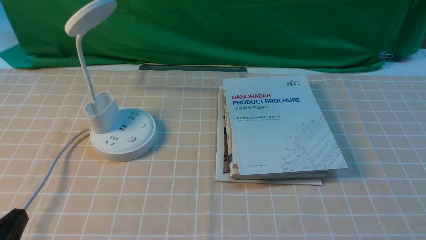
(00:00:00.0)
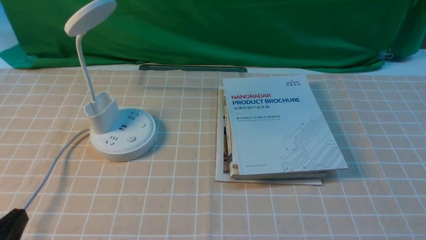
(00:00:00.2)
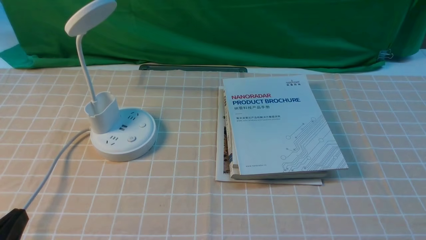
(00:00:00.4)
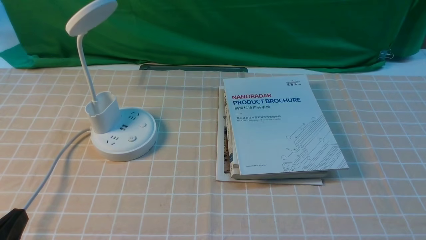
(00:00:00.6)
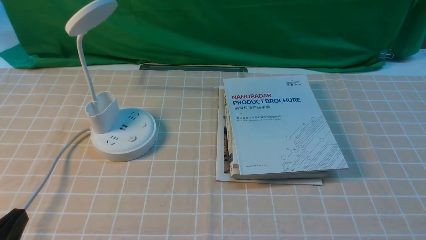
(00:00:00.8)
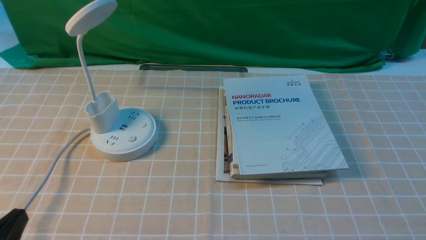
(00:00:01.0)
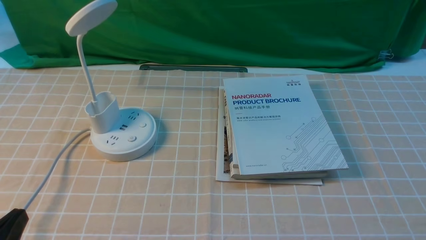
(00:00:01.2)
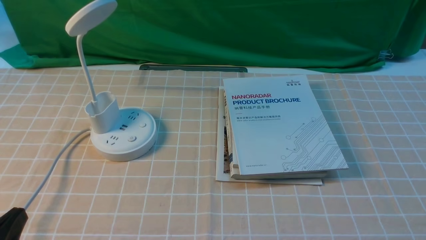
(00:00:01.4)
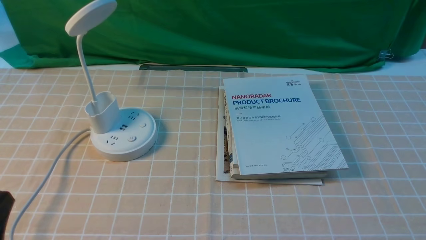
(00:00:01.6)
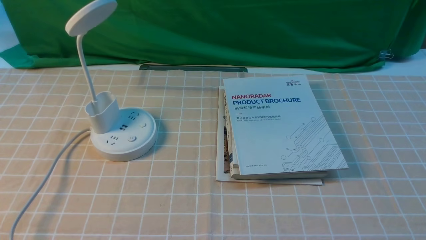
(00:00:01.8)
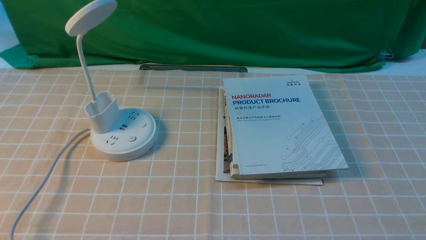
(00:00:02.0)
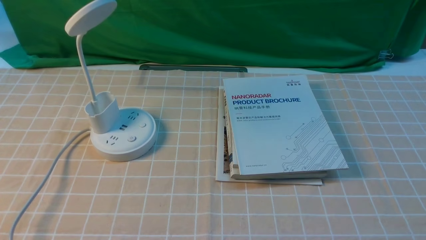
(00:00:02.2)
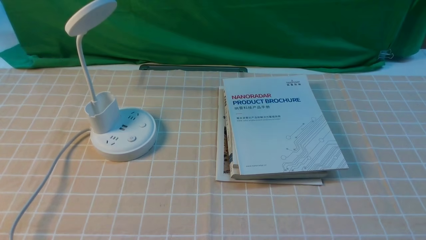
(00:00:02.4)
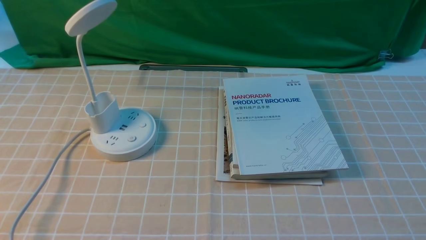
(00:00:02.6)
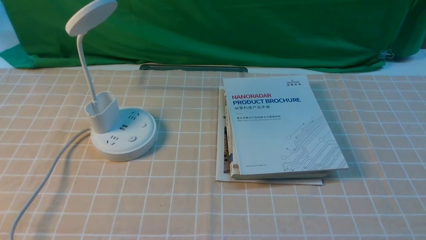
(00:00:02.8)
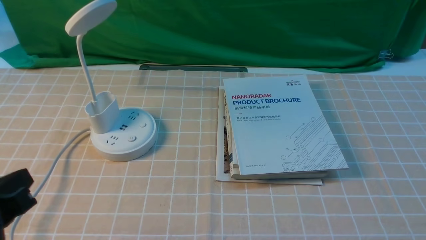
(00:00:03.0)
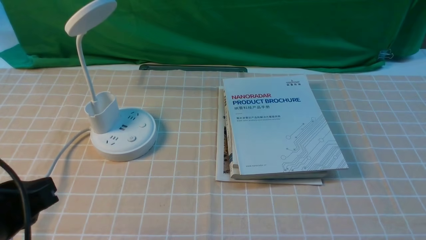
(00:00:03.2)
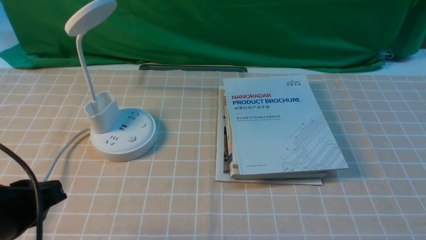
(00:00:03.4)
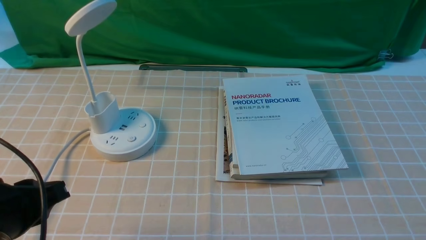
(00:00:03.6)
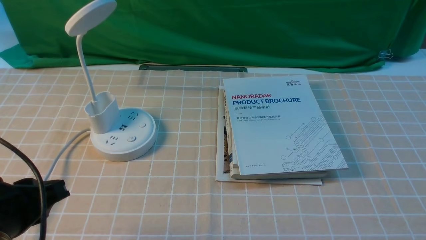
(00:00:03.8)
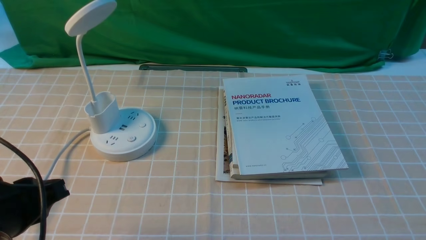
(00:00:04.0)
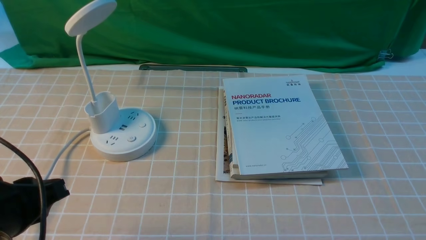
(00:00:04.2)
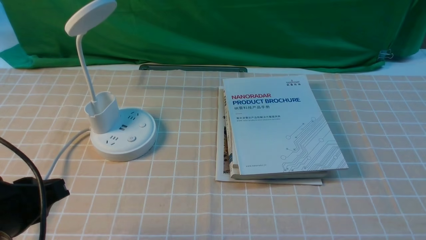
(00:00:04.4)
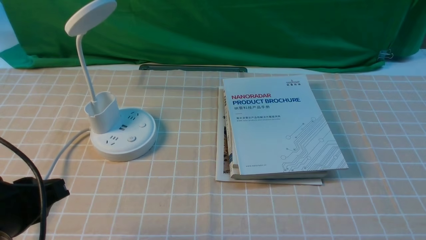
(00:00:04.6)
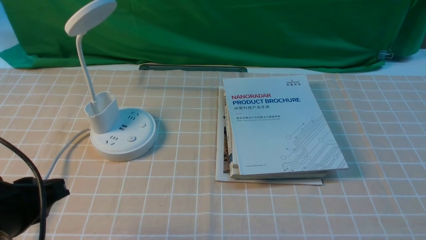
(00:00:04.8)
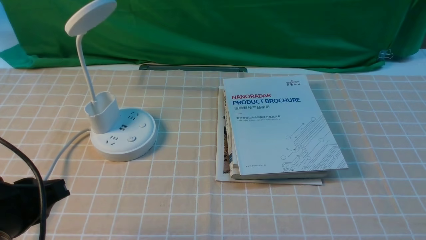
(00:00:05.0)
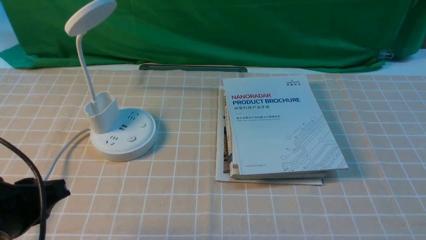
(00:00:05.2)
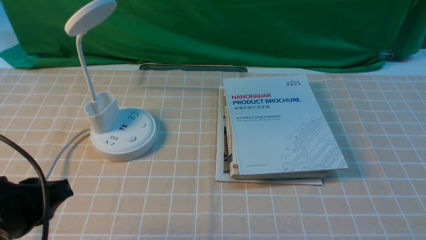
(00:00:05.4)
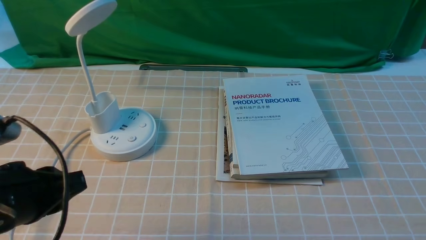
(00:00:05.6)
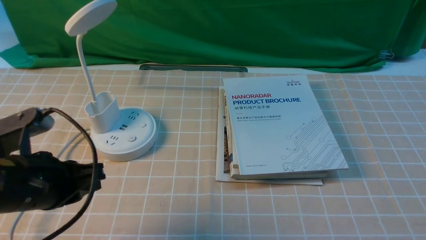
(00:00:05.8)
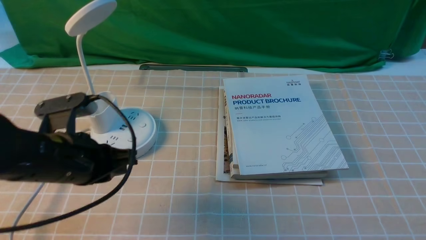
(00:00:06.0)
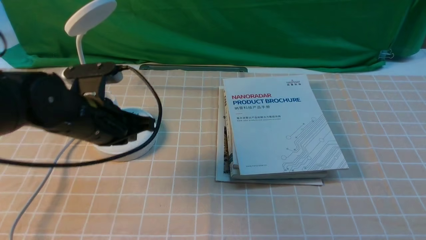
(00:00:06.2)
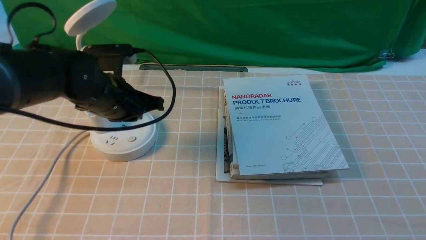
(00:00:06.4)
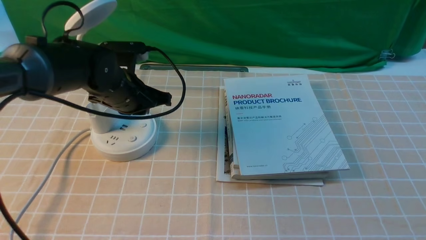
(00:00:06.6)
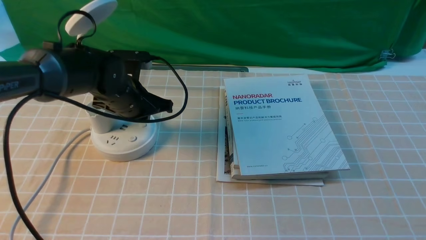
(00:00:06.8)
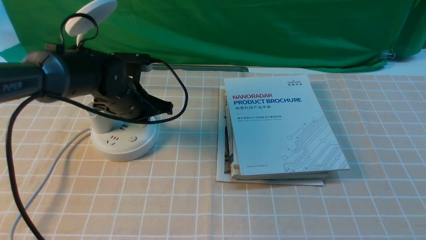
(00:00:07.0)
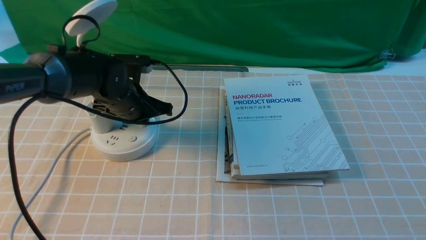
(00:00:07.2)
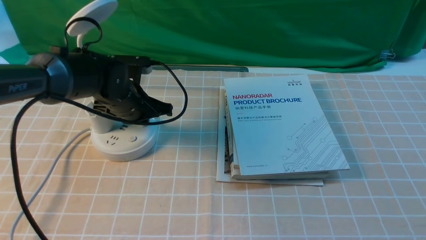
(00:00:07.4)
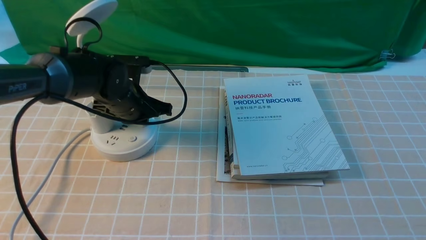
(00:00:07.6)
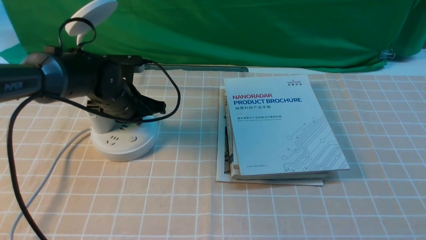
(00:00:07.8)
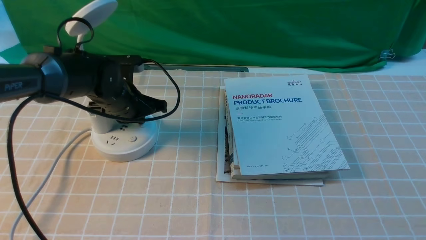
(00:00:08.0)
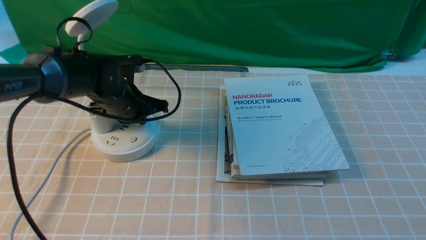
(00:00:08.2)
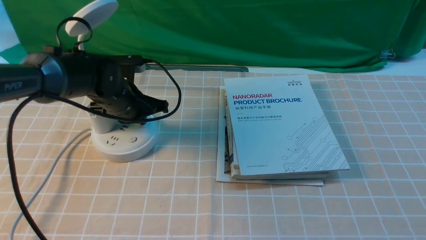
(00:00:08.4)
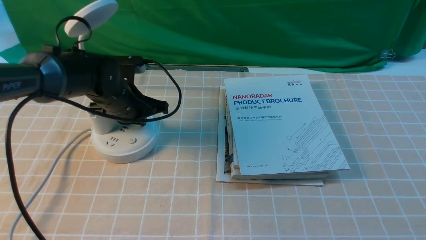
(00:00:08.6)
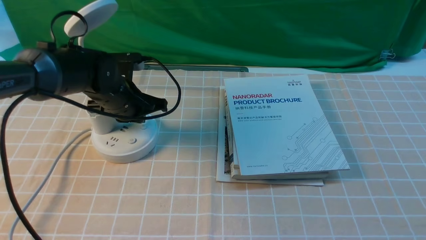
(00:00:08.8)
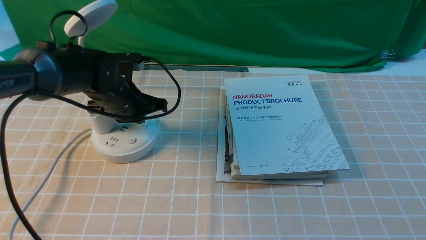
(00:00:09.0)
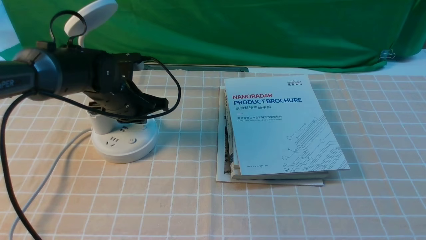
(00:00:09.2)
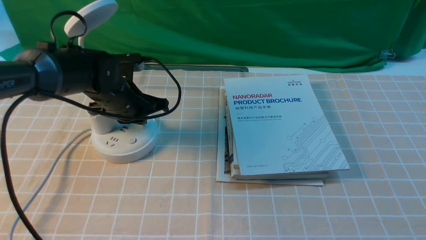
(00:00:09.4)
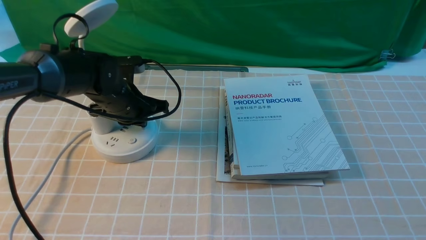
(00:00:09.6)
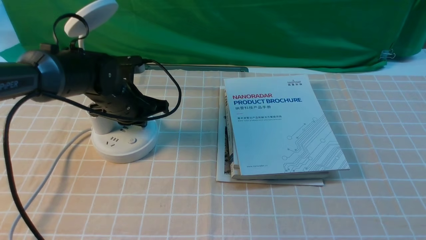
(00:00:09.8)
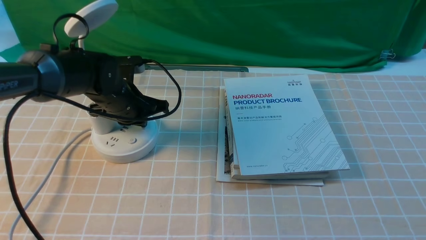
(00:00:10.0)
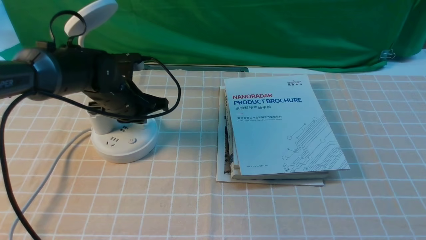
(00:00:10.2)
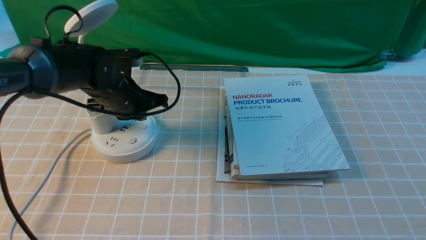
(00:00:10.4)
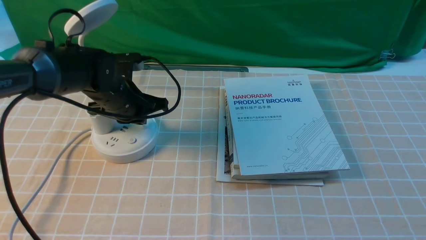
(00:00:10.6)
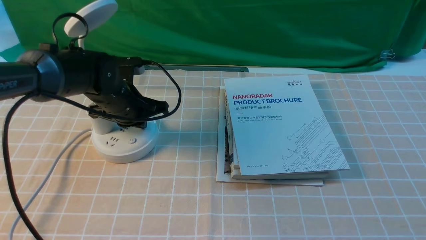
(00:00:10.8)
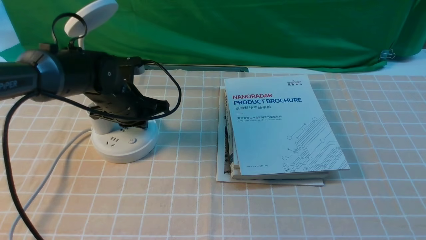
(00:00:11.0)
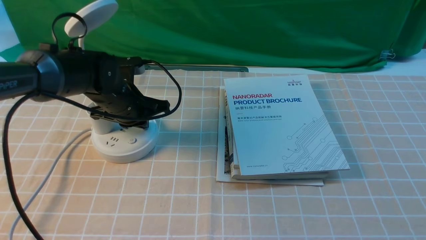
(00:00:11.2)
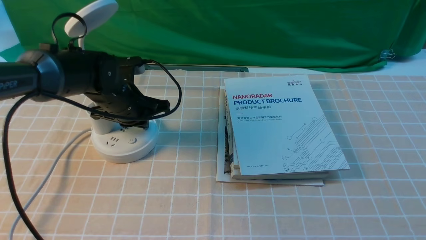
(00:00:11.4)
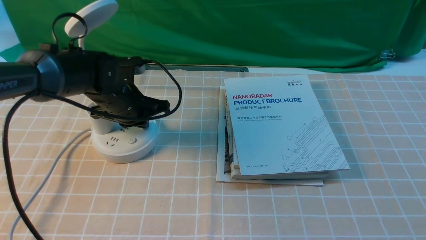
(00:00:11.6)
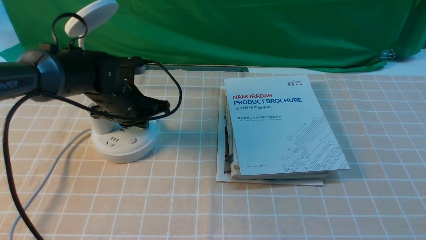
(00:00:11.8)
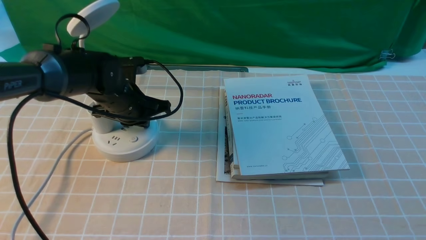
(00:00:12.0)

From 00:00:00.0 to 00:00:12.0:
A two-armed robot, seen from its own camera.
From 00:00:01.6 to 00:00:03.0: The left gripper shifts roughly 5 cm upward.
From 00:00:03.0 to 00:00:04.4: The grippers move only a little.
From 00:00:04.4 to 00:00:06.0: The left gripper goes about 10 cm forward and to the right, and closes its fingers.
From 00:00:06.0 to 00:00:07.6: The left gripper goes some 15 cm forward.
From 00:00:07.6 to 00:00:09.0: Both grippers stay put.
From 00:00:09.0 to 00:00:10.4: Both grippers stay about where they are.
From 00:00:10.4 to 00:00:12.0: The grippers make only small movements.

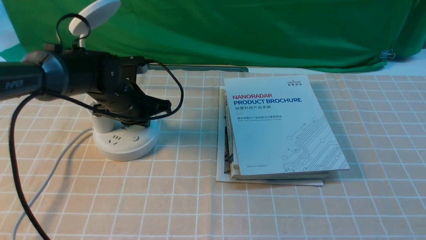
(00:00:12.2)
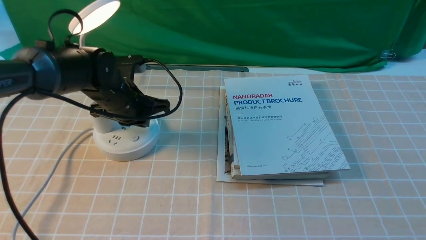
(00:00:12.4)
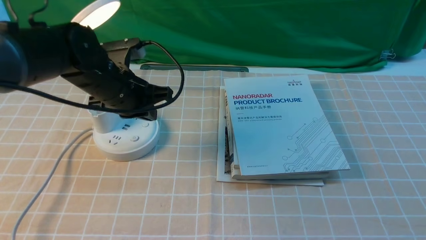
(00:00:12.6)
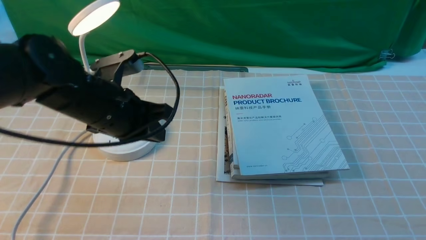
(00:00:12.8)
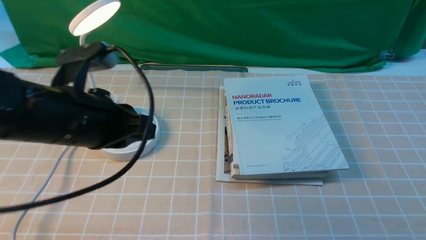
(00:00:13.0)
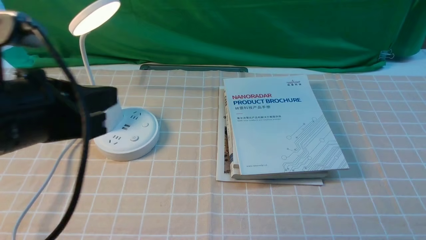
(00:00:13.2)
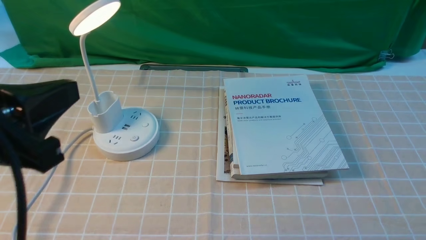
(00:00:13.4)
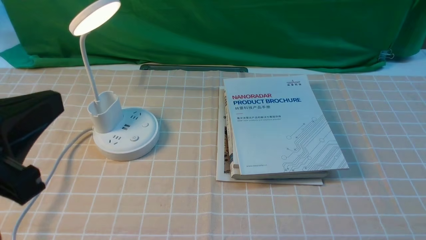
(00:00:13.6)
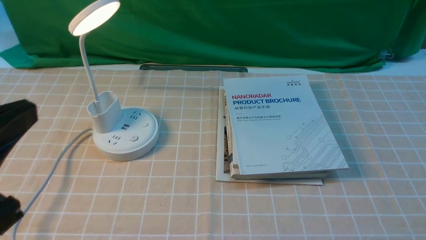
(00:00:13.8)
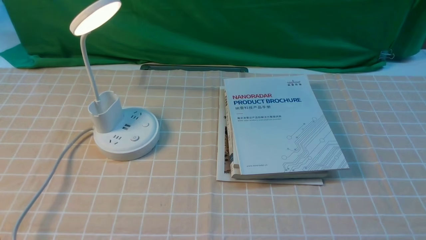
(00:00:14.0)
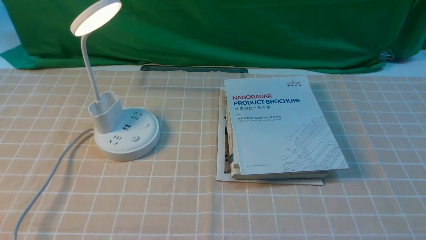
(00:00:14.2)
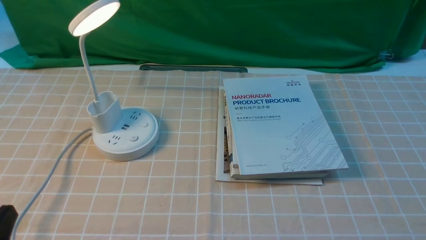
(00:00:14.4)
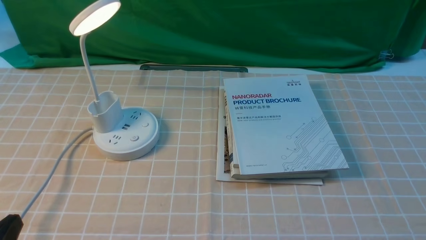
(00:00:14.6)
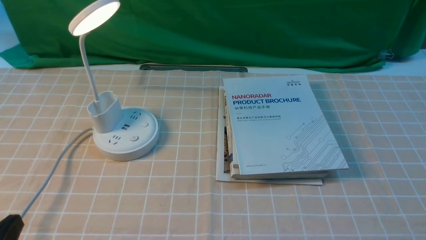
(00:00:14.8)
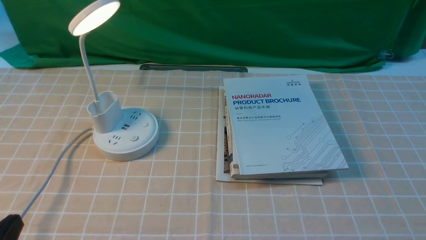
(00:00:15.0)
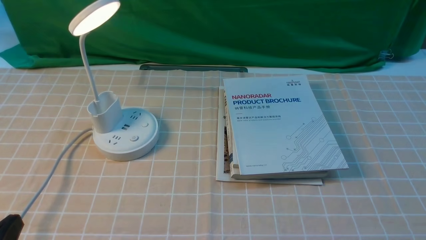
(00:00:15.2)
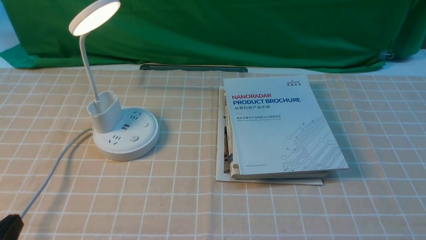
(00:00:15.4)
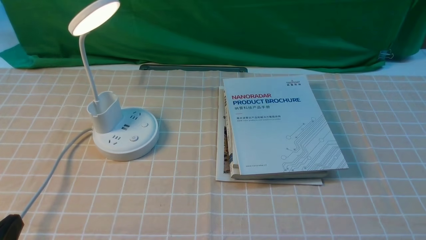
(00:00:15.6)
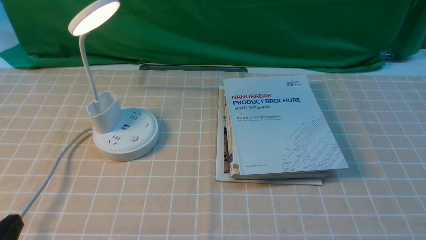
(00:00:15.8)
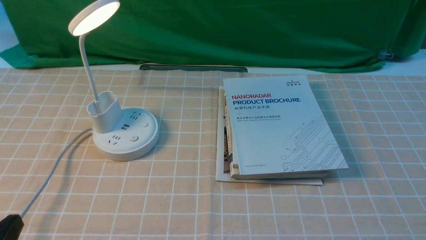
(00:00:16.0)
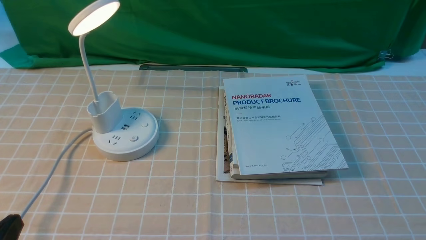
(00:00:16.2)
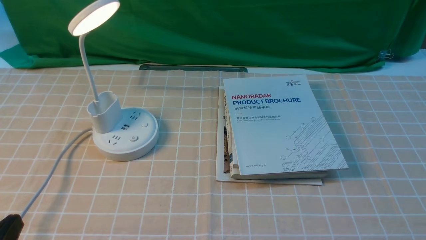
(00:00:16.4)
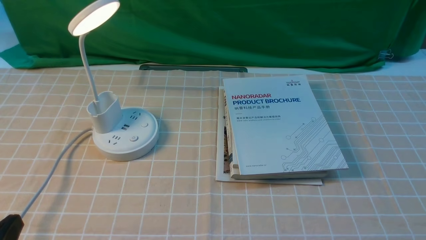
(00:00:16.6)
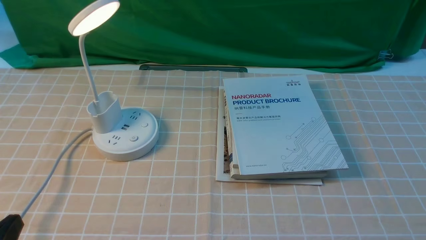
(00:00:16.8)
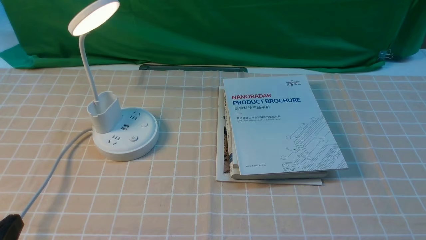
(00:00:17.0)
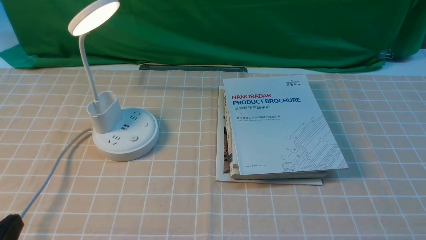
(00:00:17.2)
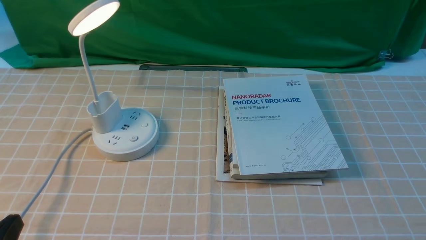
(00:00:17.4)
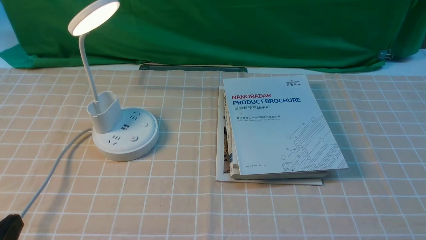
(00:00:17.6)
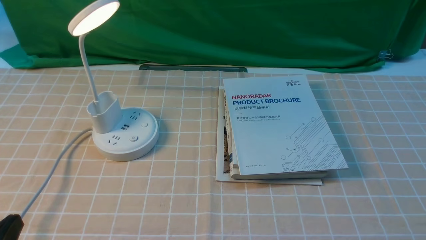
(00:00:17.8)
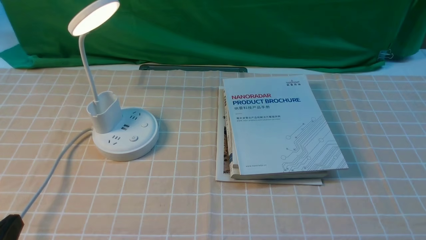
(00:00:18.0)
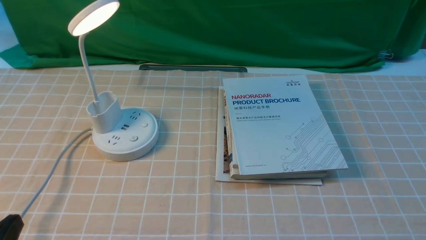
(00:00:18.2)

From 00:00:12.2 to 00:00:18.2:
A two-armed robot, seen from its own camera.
From 00:00:12.2 to 00:00:13.8: The left gripper travels backward and upward by about 35 cm.
From 00:00:13.8 to 00:00:15.2: The left gripper is displaced downward by approximately 15 cm.
From 00:00:15.2 to 00:00:18.2: The two grippers keep their place.
